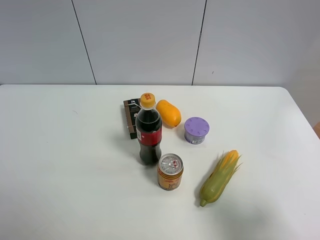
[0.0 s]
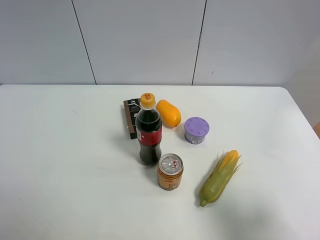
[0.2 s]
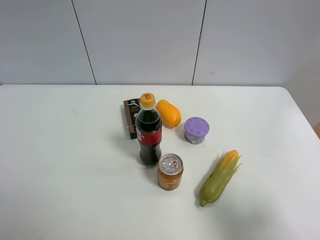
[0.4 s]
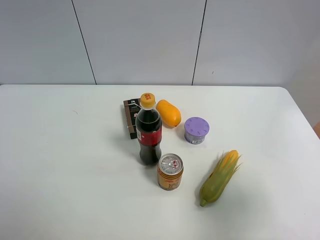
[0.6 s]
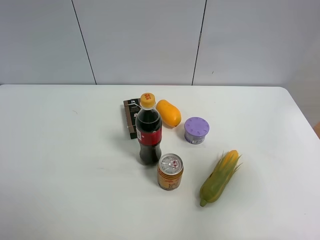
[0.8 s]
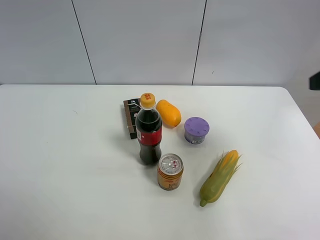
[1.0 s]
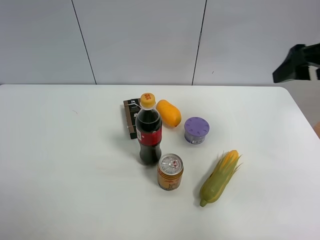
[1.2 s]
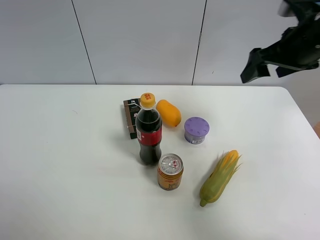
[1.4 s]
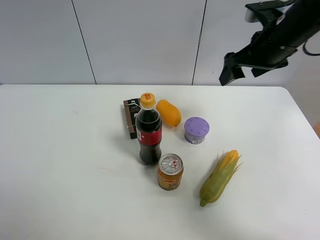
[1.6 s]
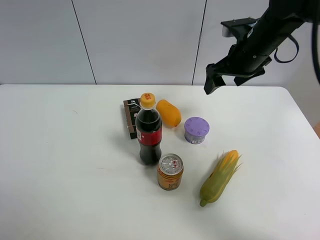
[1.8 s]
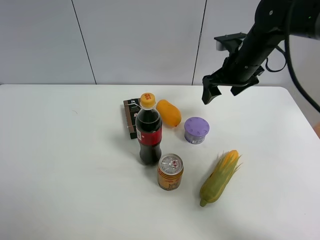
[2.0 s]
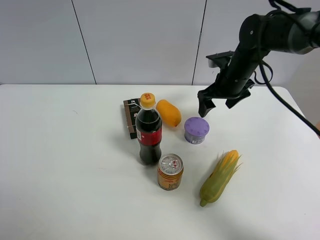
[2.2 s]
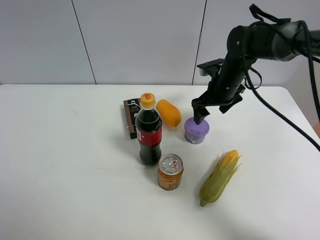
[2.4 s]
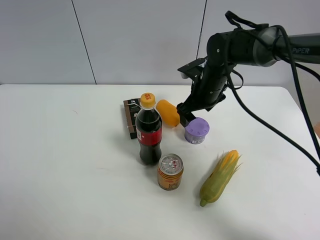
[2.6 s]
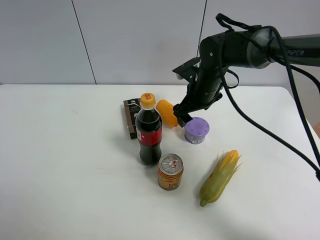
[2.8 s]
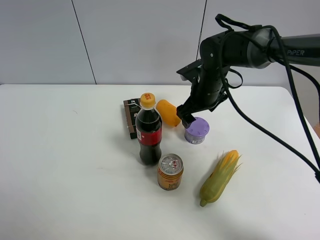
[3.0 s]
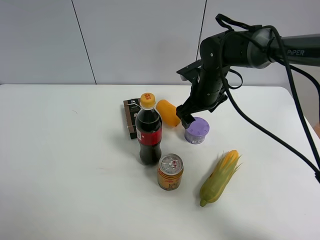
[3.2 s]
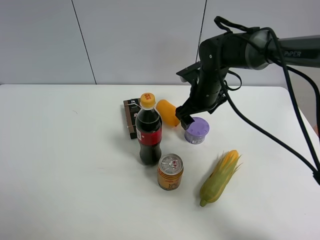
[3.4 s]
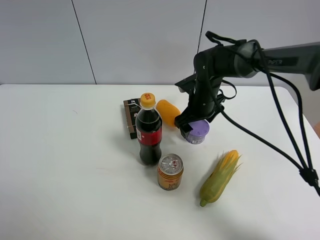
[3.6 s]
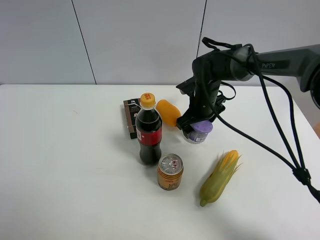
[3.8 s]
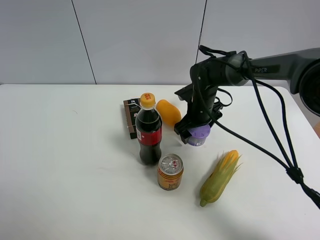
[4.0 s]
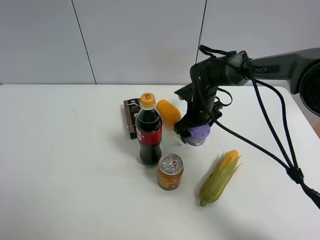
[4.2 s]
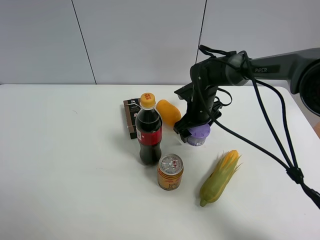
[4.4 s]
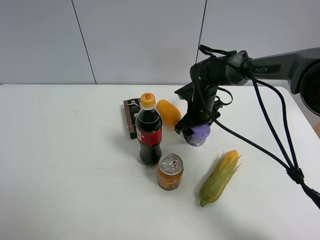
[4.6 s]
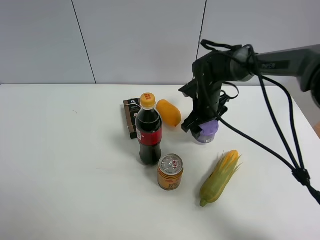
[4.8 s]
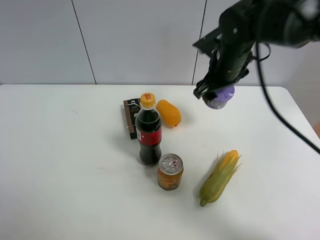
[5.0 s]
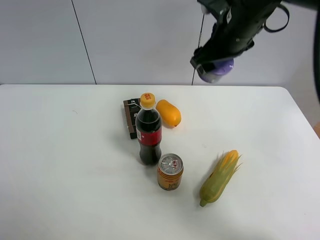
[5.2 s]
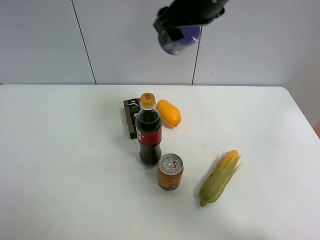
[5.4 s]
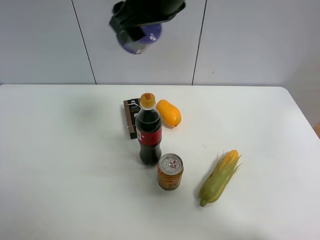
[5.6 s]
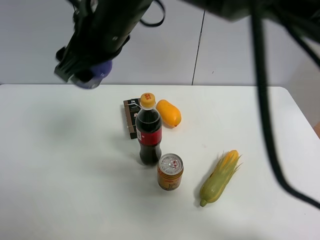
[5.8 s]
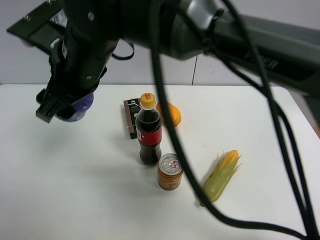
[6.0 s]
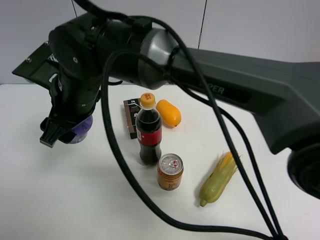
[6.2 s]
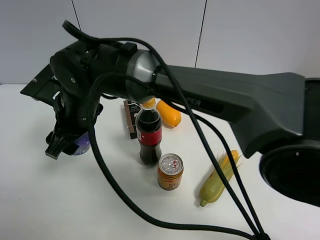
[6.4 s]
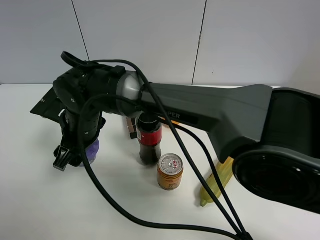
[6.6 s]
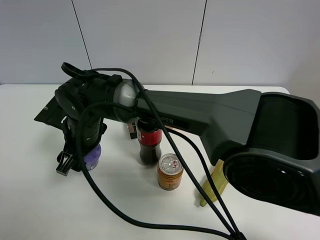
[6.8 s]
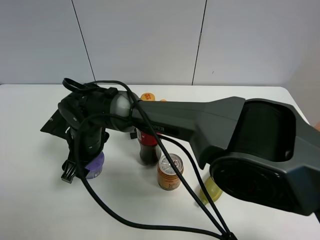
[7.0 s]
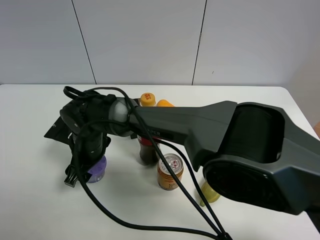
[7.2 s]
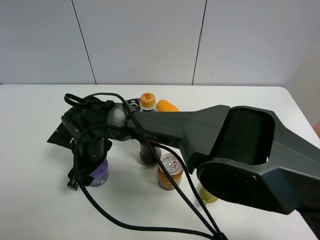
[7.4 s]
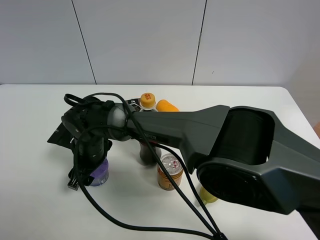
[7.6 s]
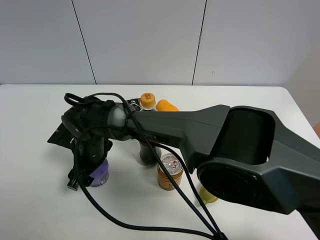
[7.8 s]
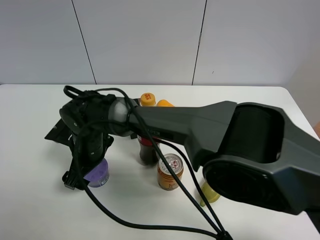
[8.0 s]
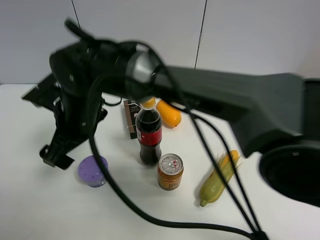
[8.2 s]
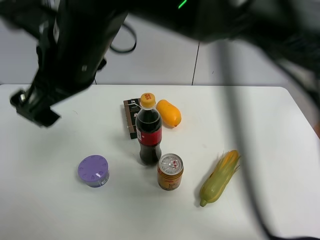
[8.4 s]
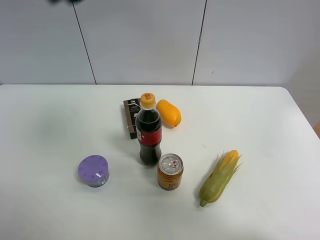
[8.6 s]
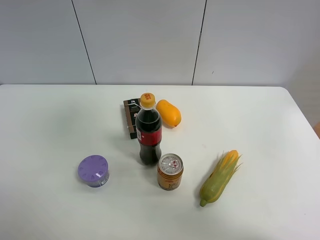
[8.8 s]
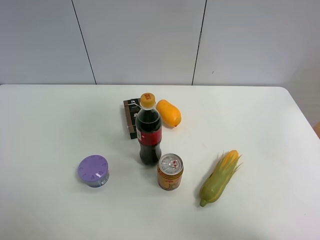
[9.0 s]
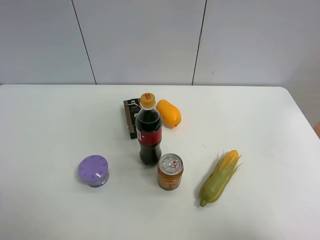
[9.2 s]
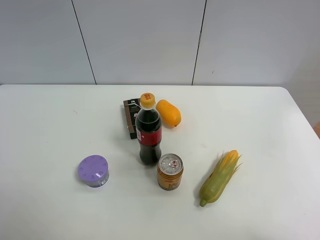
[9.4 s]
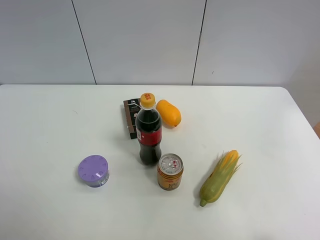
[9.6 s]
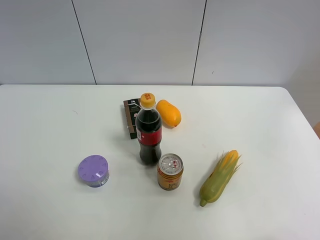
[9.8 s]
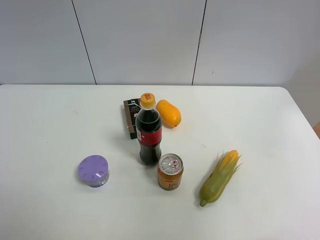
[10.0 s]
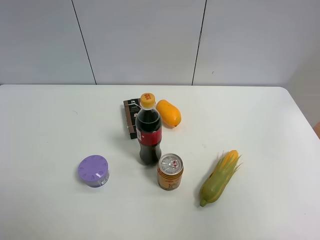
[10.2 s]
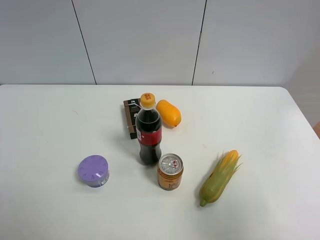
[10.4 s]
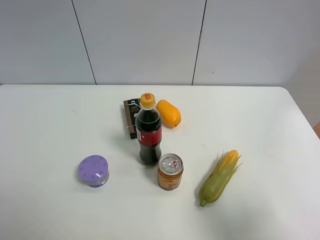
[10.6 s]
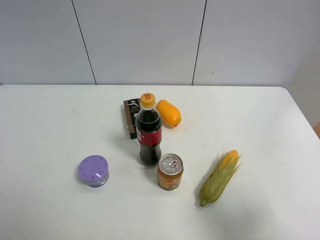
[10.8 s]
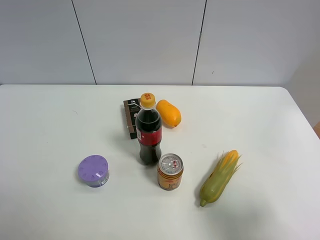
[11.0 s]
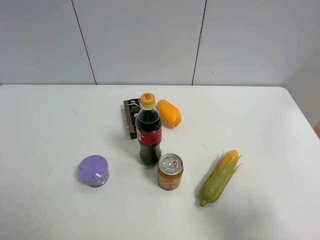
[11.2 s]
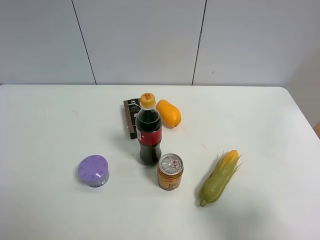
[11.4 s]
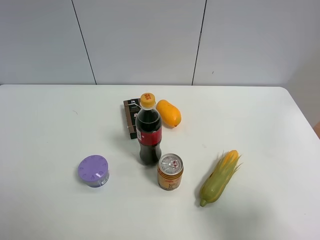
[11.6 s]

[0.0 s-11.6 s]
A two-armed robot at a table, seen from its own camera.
Task of the whole recording: the gripper move the object.
Step, 0.0 to 4.4 s: Grasp the Incense box with the right gripper.
Step, 4.6 to 8.0 s: Place the Incense box on the table with the right gripper.
0.0 to 1.4 s: The right gripper moves forward, about 30 cm, and closes its fingers.
1.4 to 2.8 s: The right gripper moves downward, to the left and forward, about 20 cm.
2.8 to 4.4 s: The right gripper goes some 5 cm downward.
4.4 to 5.8 s: The right gripper goes about 30 cm upward, to the left and backward, and closes.
5.8 to 7.2 s: The right gripper travels downward by some 25 cm.
7.2 to 8.8 s: The right gripper heads upward and to the right, covering some 50 cm, and opens up.
8.8 to 10.2 s: The right gripper shifts roughly 35 cm to the right and backward.
10.2 to 11.6 s: The right gripper is displaced downward by roughly 15 cm.
